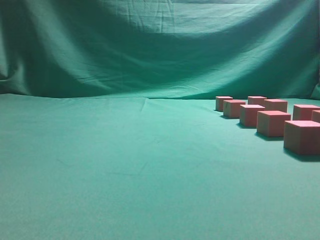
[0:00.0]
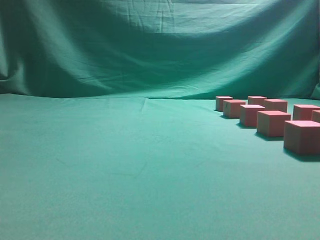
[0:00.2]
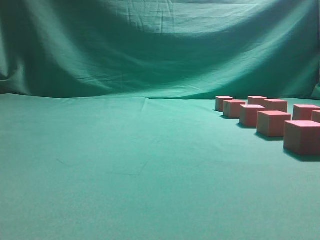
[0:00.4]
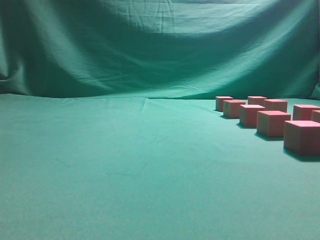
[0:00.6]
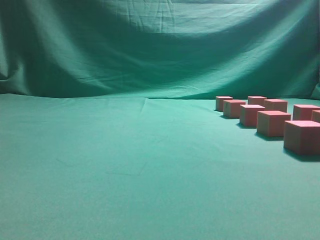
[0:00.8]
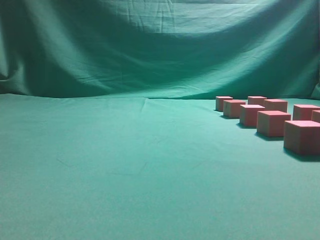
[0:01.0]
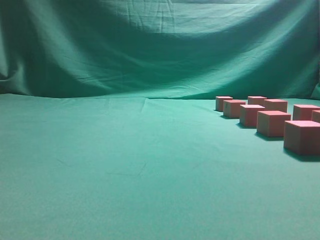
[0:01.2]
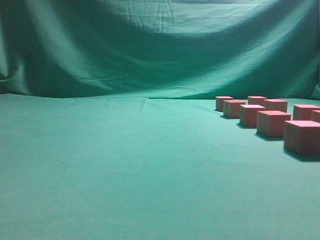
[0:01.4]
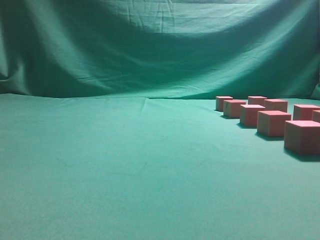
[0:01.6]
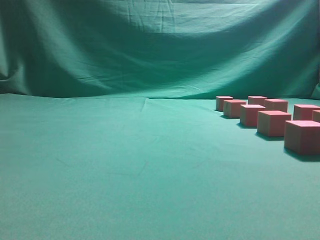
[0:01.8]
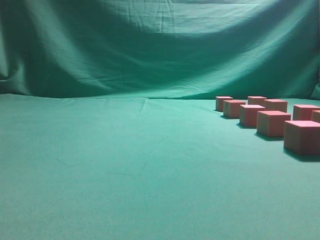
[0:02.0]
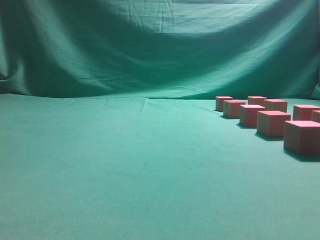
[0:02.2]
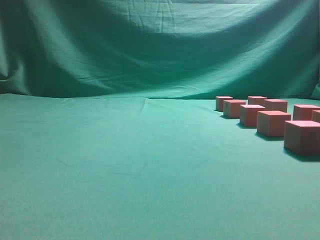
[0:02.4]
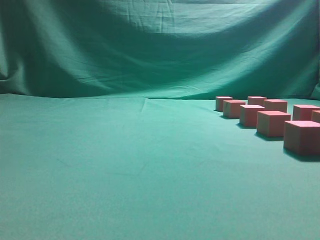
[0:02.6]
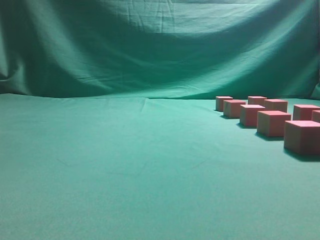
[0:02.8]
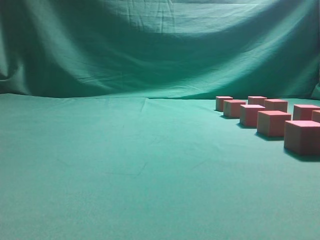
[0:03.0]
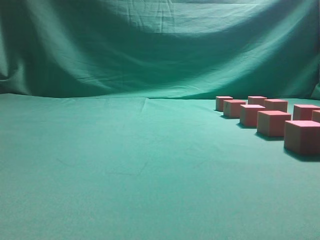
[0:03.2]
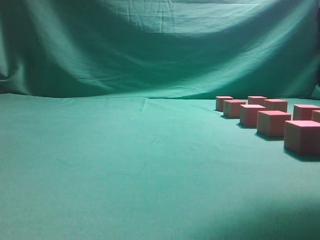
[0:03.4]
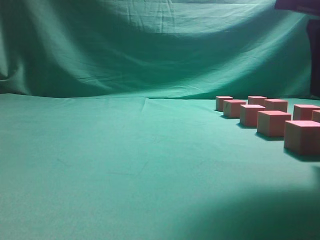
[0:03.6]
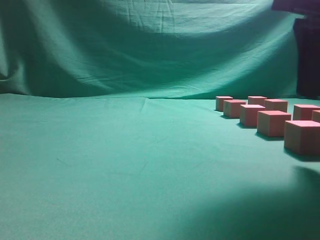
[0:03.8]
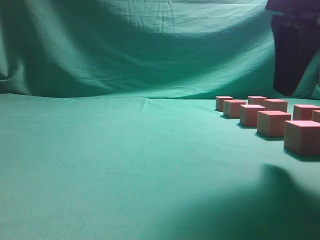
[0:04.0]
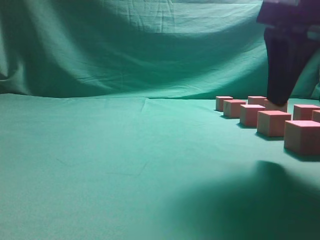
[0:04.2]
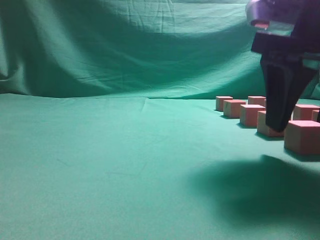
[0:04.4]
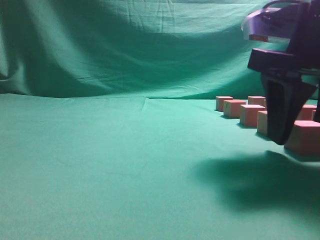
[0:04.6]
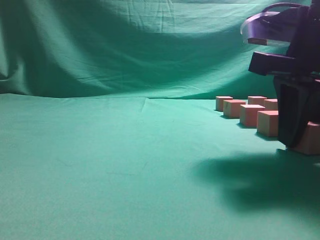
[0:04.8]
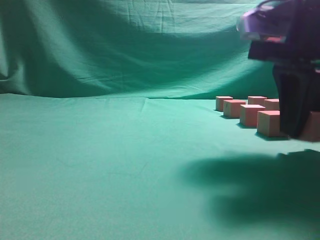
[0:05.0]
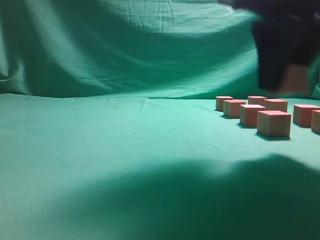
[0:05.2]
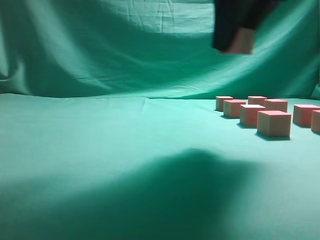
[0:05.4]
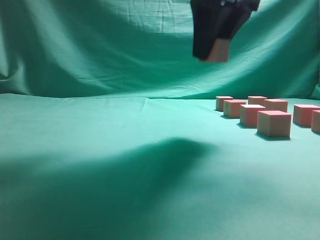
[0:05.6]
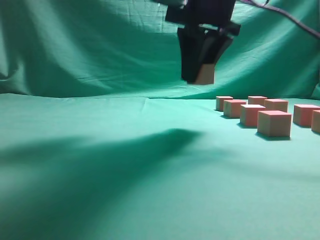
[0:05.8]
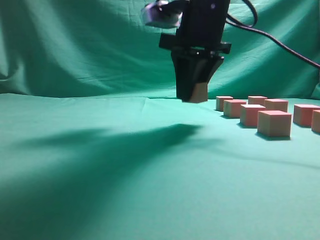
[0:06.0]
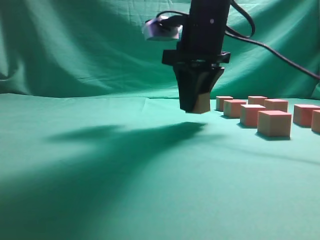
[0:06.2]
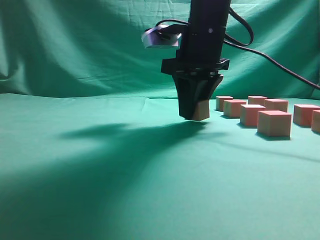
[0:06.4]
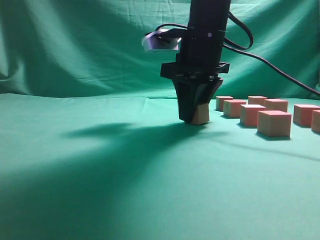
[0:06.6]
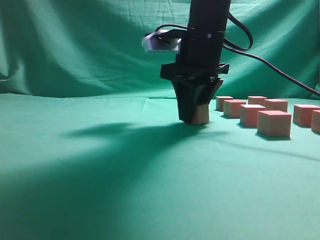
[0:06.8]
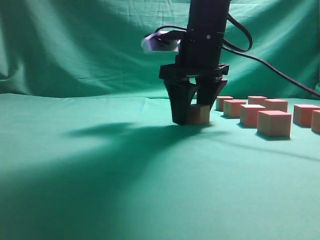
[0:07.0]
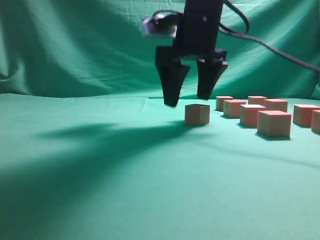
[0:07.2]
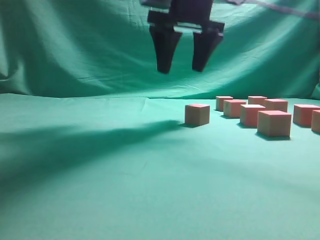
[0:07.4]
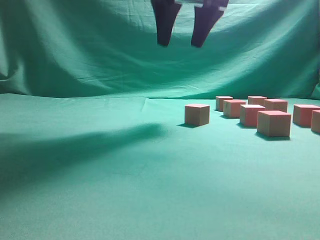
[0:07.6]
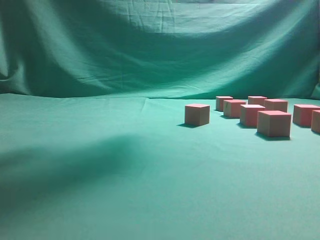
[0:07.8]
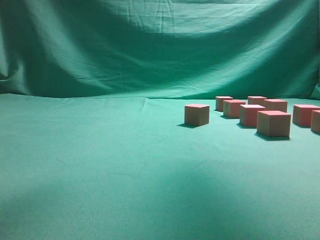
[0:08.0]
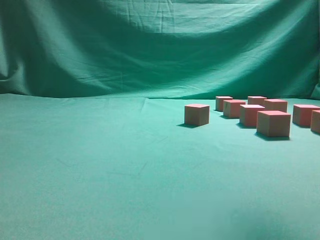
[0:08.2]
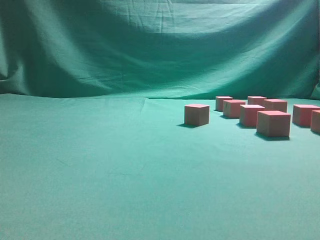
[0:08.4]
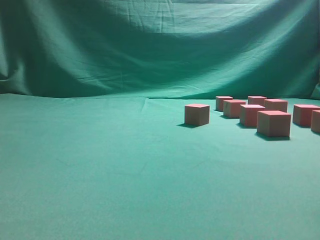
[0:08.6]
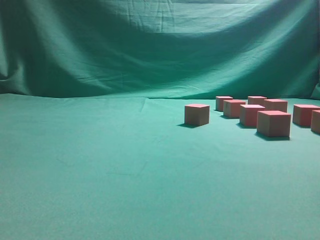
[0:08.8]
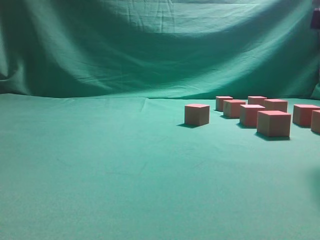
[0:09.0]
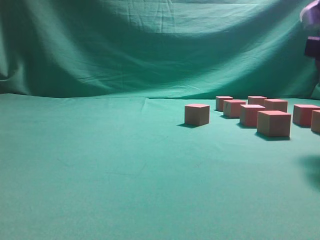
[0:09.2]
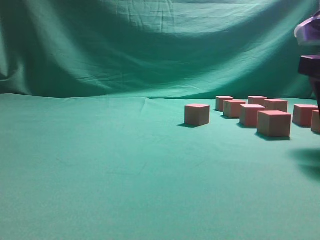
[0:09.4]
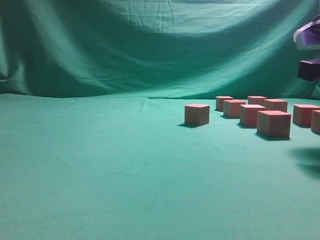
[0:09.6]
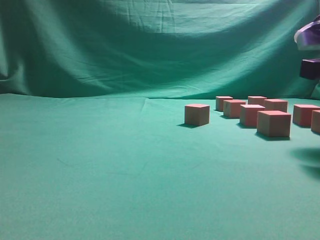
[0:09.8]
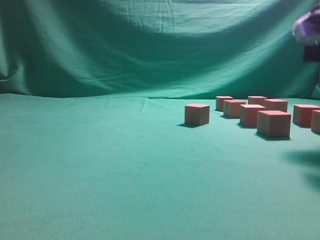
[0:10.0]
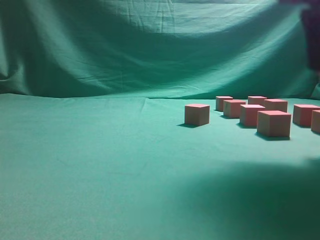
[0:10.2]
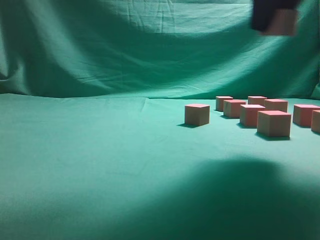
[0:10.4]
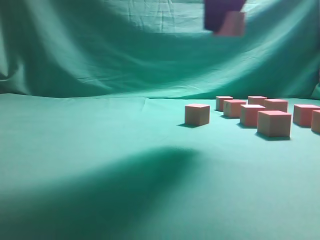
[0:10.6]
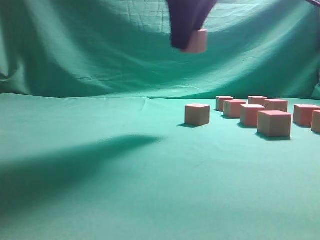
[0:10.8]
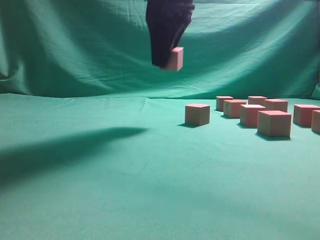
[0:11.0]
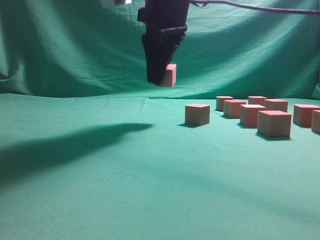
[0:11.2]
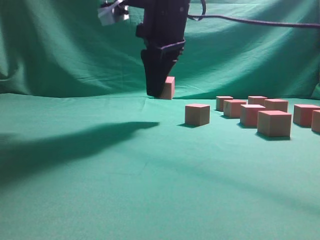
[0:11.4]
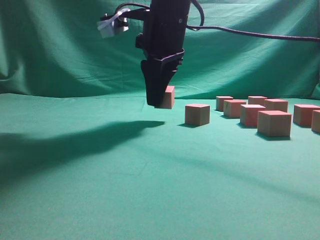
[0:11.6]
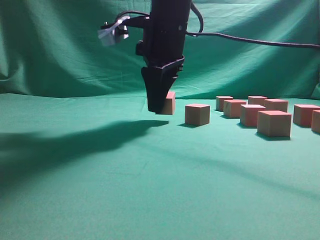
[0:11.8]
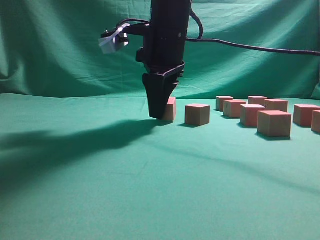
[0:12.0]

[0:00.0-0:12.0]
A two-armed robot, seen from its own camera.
Task of the whole recording: pick up the multiple cubes in two columns one by one and place them in another position on the table.
Step, 0.0 to 5.0 s: Pick up the block on the table.
Step, 5.4 to 7.4 s: Place the block at the correct position to assemble the letter S.
Step, 7.8 to 10.0 s: Pick up the block on the table.
3.0 to 4.4 s: The right gripper heads downward and forward, covering some 10 cm, and opens its fingers.
4.4 to 6.0 s: The right gripper is displaced forward and to the left by some 15 cm, and closes.
6.0 to 7.6 s: The right gripper shifts approximately 10 cm upward, and opens.
7.6 to 9.0 s: The right gripper shifts some 25 cm to the right, backward and downward.
9.0 to 10.4 s: The right gripper travels to the left and upward by some 10 cm, and closes up.
10.4 to 12.0 s: The right gripper travels to the left, downward and forward by roughly 20 cm.

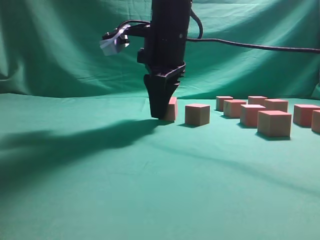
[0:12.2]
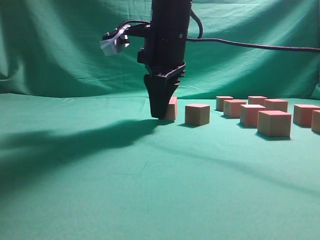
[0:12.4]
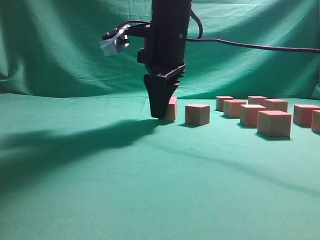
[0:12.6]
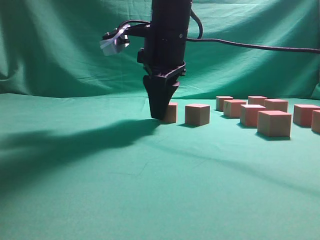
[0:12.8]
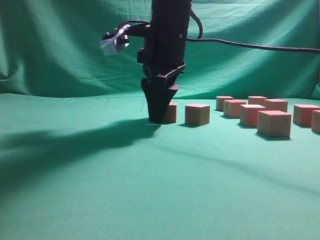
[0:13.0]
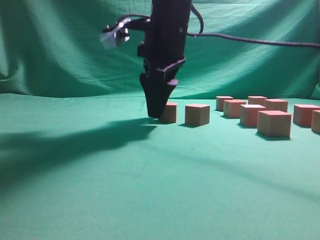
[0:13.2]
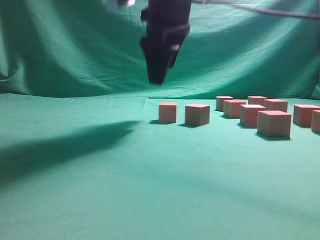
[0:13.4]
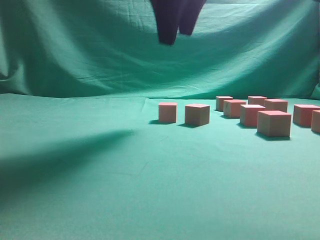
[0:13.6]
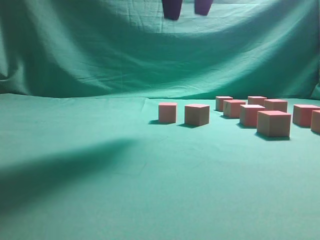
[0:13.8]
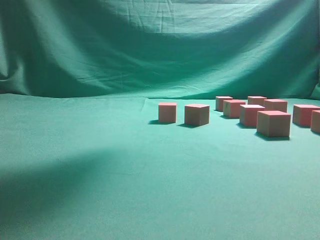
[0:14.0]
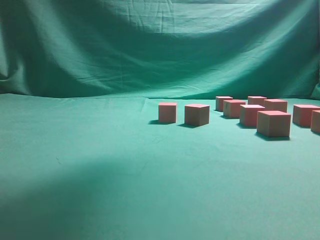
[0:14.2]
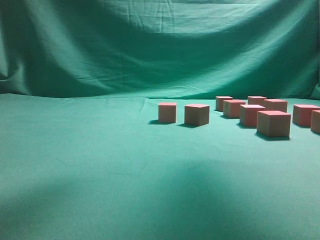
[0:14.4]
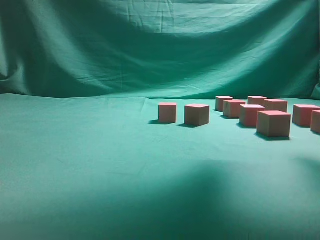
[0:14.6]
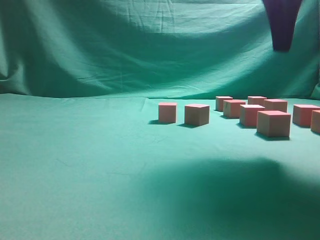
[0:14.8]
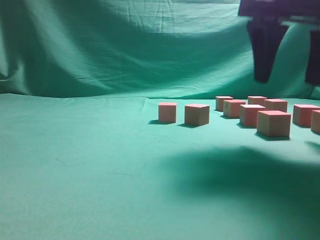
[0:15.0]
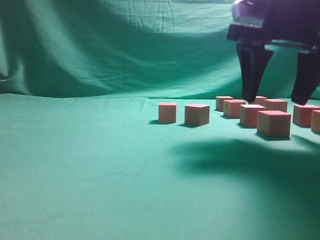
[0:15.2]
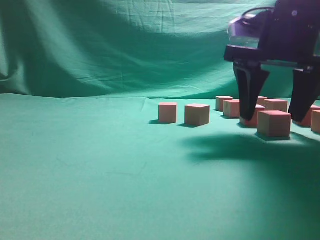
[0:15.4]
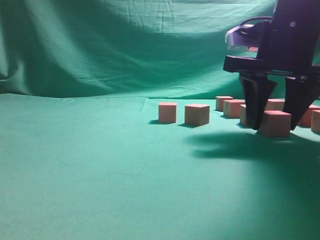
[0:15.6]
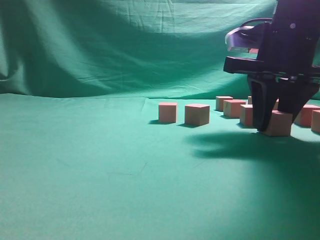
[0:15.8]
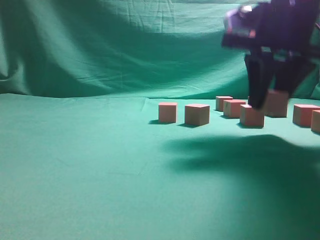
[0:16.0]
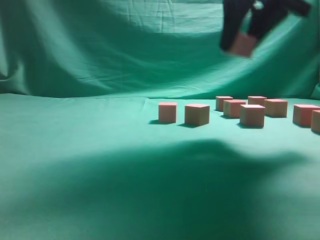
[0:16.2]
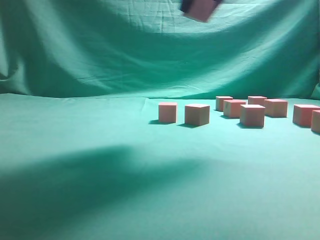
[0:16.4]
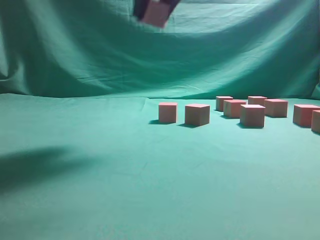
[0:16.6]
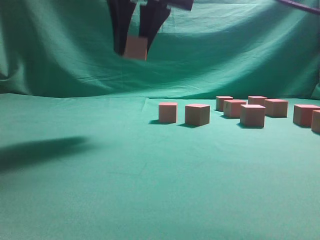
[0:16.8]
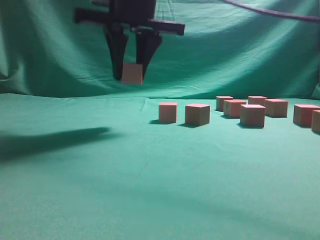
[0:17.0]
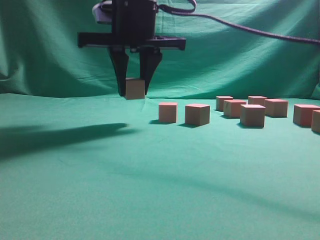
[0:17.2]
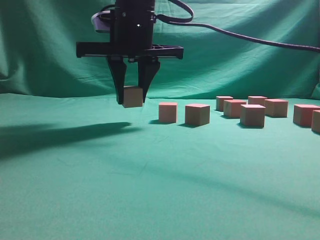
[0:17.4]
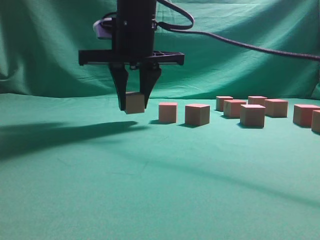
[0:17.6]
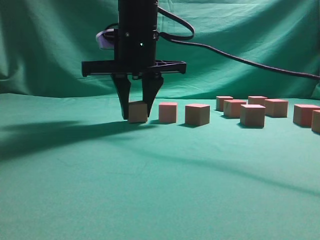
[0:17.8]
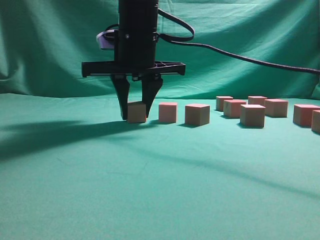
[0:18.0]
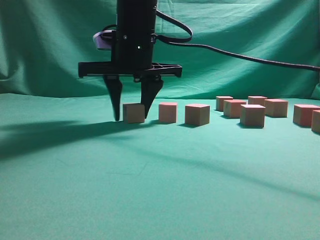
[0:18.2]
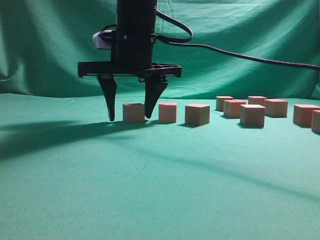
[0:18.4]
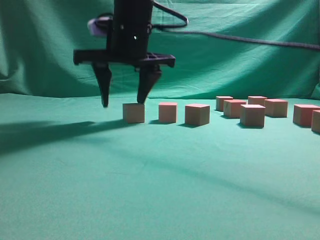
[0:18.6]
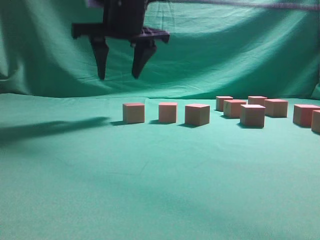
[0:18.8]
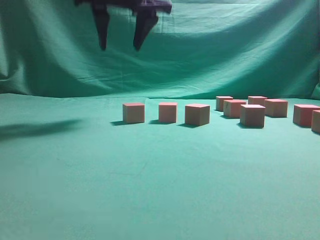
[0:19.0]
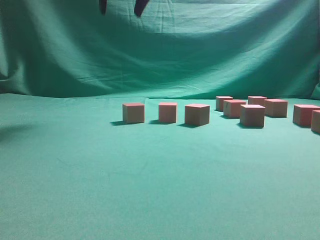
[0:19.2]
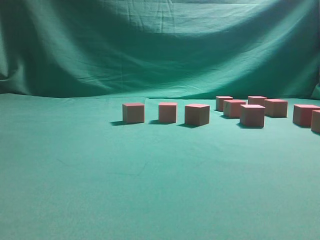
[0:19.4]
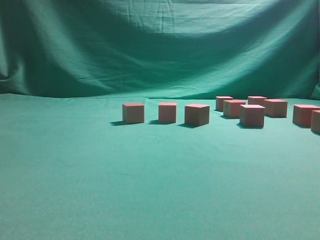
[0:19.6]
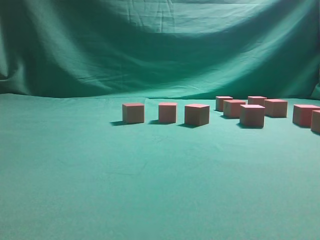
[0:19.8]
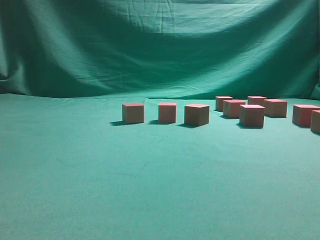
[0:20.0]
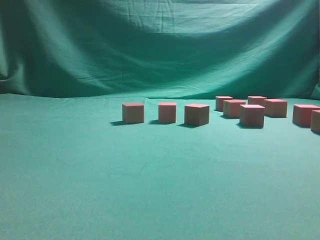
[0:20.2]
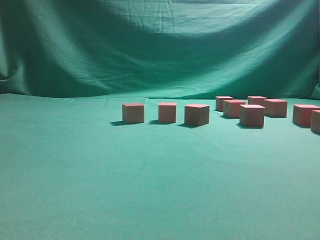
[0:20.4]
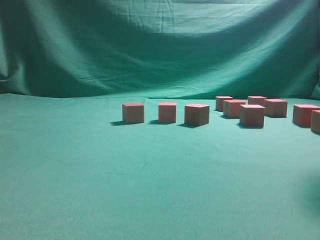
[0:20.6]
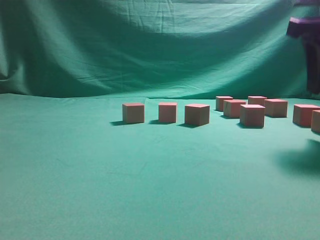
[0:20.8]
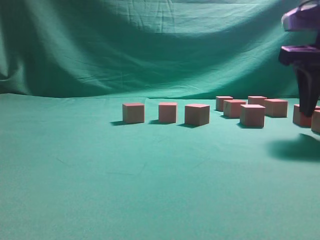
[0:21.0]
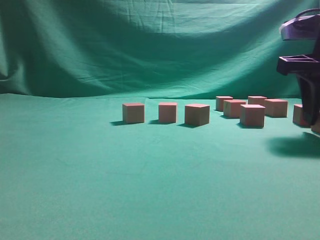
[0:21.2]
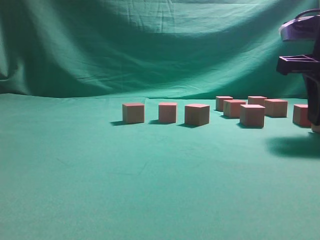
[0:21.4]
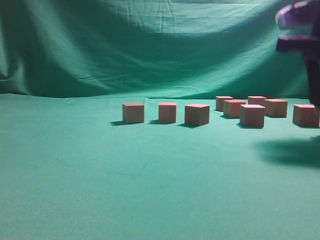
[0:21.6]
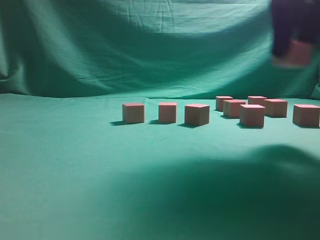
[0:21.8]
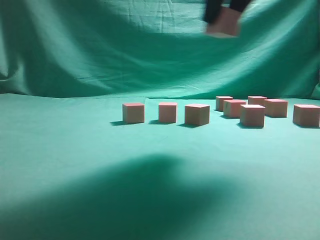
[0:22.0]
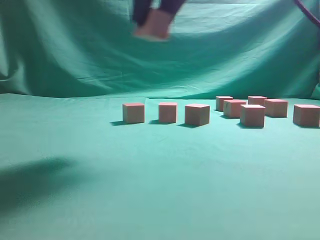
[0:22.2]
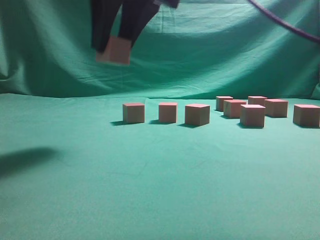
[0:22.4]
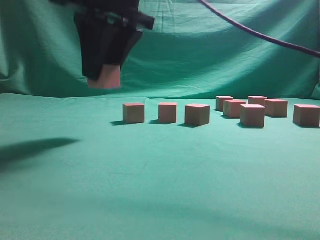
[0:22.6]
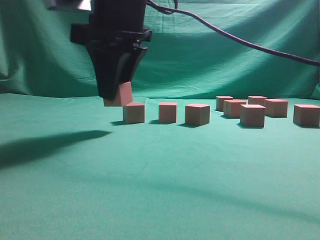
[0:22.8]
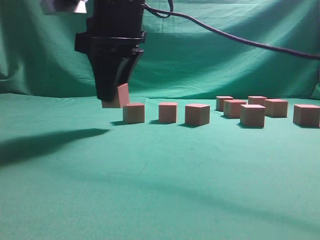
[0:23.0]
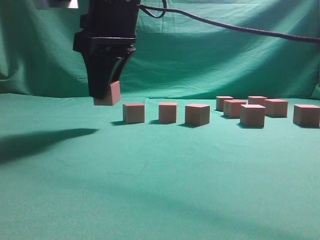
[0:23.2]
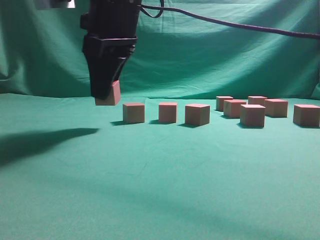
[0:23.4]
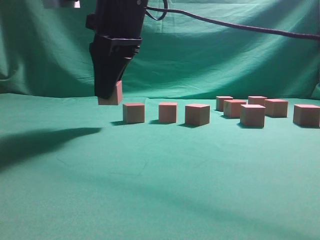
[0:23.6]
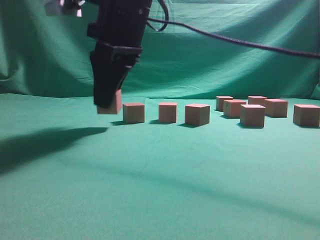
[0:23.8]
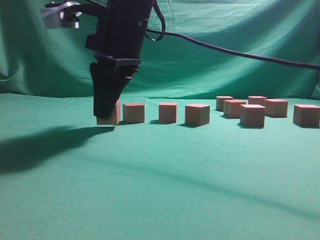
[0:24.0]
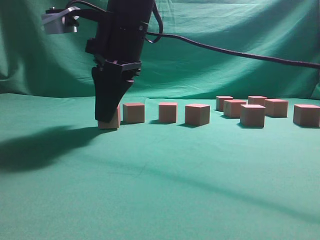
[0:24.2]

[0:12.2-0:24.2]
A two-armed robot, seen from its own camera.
Task of the whole recording: pick up the multiple cubes in two columns one by one and place them in another position on the table.
Step, 13.6 to 16.0 s: Pick up the block on the table.
Step, 16.2 to 19.0 s: Place the block at the correct position to assemble the letter S.
Step, 19.2 to 21.6 s: Pick up the block on the table.
12.2 to 13.8 s: The right gripper moves upward, some 15 cm, and opens up.
13.8 to 15.2 s: The right gripper heads downward and to the right, covering some 15 cm.
15.2 to 16.6 s: The right gripper is displaced to the left and upward by approximately 20 cm, and closes its fingers.
16.6 to 18.2 s: The right gripper moves downward, forward and to the left, roughly 15 cm.
18.2 to 19.8 s: The right gripper travels upward and to the right by some 35 cm.
19.8 to 21.2 s: The right gripper is displaced downward by some 30 cm.
21.2 to 22.6 s: The right gripper is displaced to the left by approximately 25 cm.
22.6 to 24.2 s: The right gripper moves downward, roughly 5 cm.
